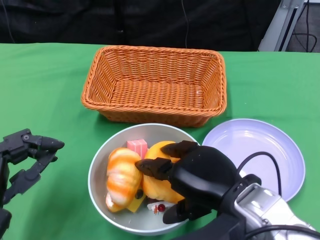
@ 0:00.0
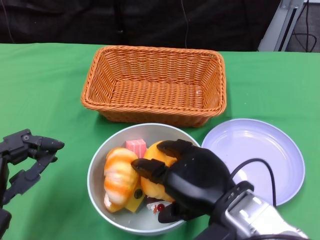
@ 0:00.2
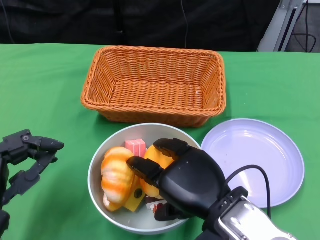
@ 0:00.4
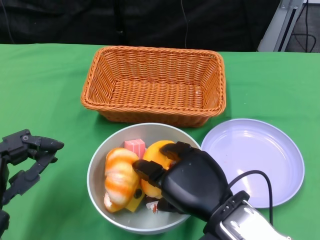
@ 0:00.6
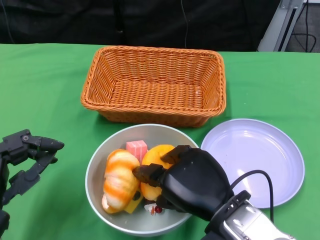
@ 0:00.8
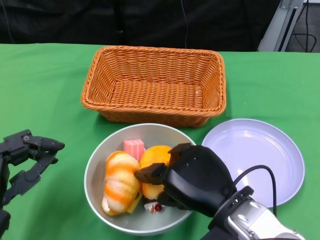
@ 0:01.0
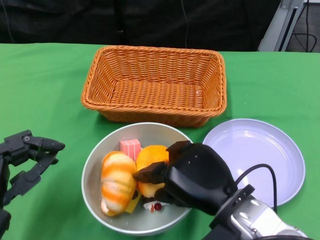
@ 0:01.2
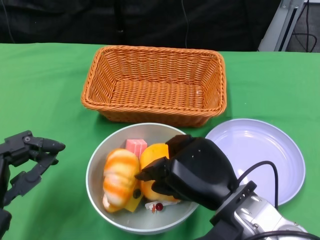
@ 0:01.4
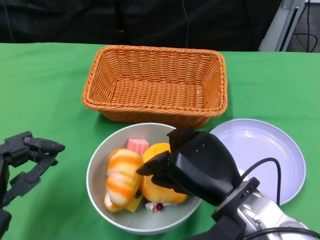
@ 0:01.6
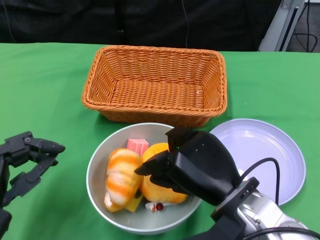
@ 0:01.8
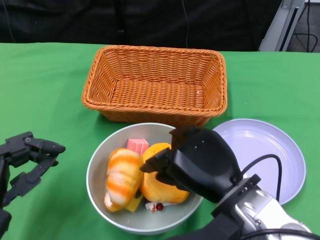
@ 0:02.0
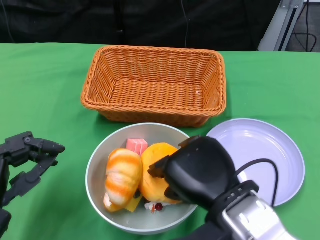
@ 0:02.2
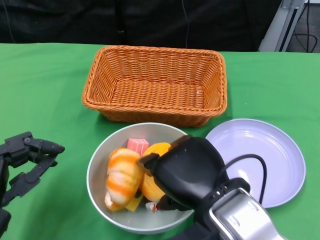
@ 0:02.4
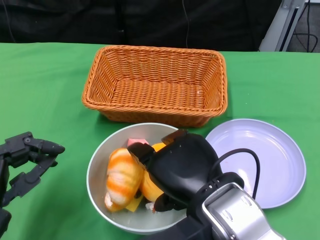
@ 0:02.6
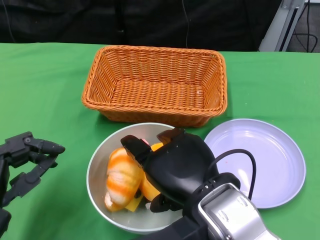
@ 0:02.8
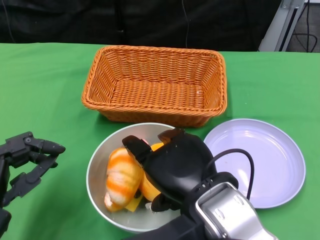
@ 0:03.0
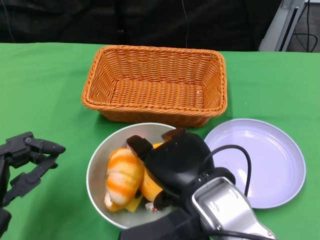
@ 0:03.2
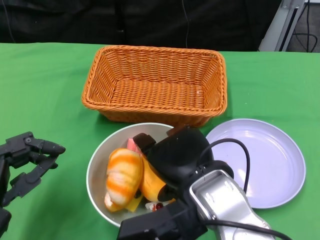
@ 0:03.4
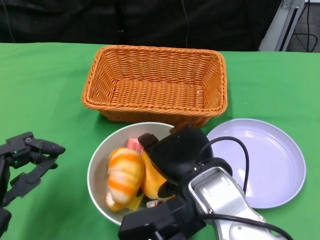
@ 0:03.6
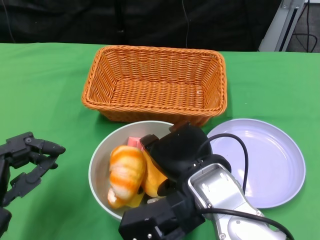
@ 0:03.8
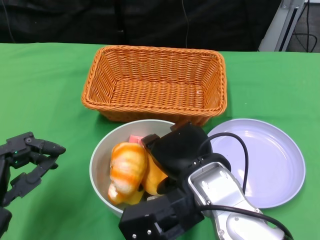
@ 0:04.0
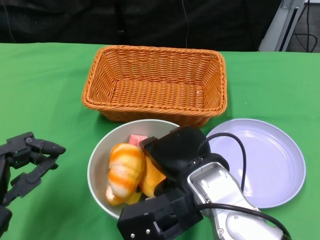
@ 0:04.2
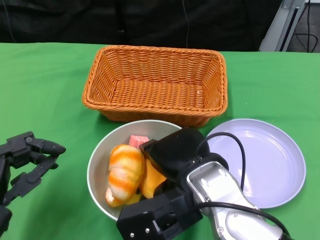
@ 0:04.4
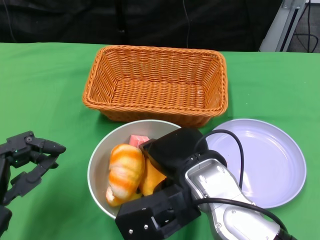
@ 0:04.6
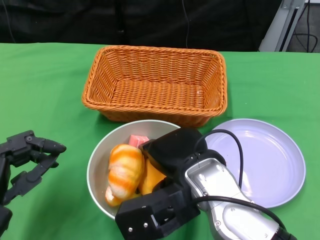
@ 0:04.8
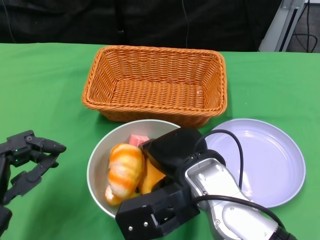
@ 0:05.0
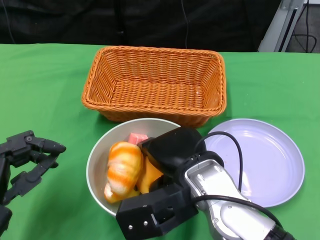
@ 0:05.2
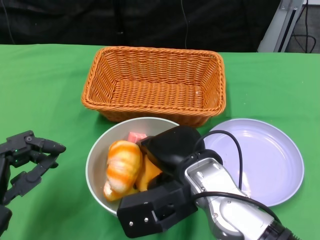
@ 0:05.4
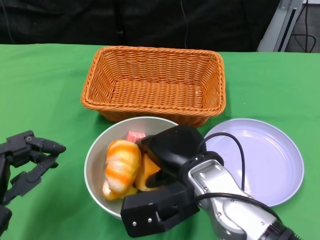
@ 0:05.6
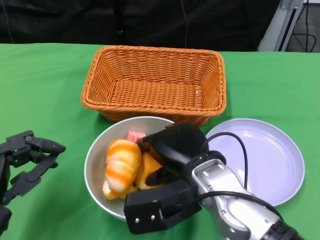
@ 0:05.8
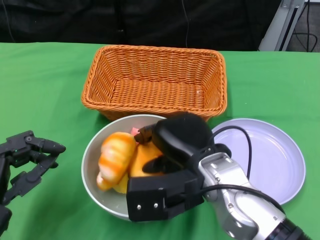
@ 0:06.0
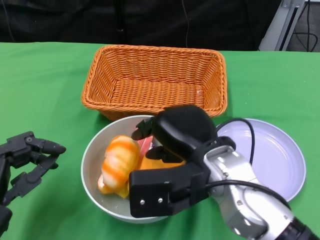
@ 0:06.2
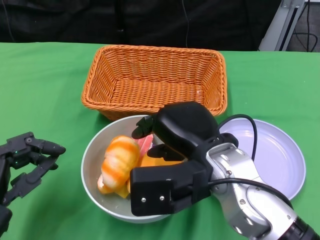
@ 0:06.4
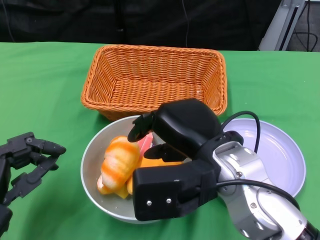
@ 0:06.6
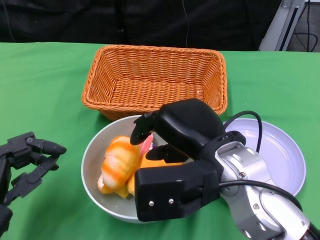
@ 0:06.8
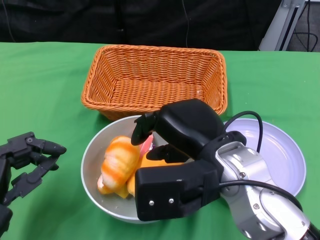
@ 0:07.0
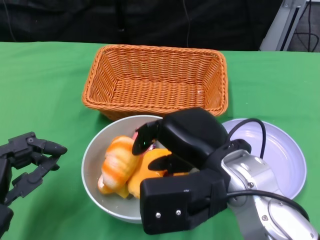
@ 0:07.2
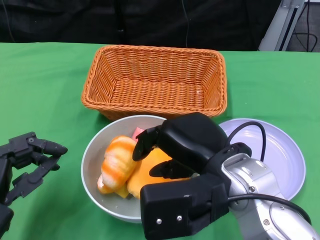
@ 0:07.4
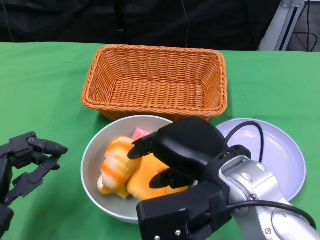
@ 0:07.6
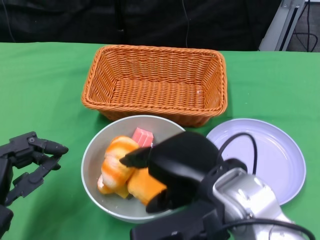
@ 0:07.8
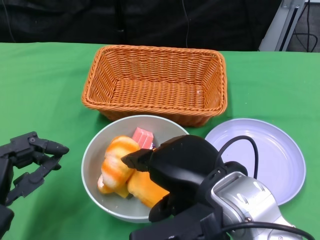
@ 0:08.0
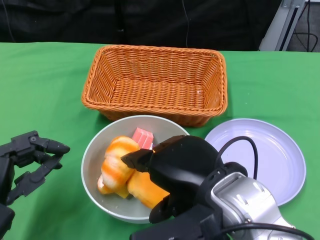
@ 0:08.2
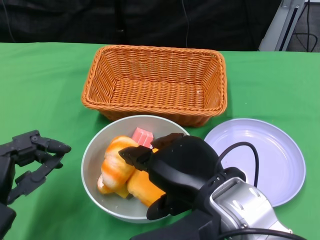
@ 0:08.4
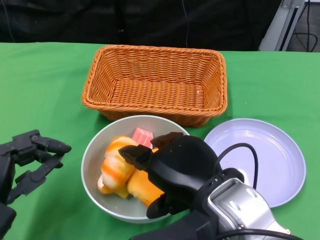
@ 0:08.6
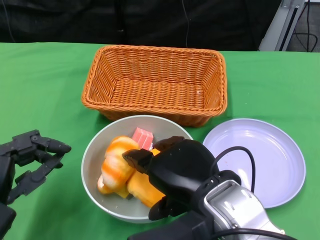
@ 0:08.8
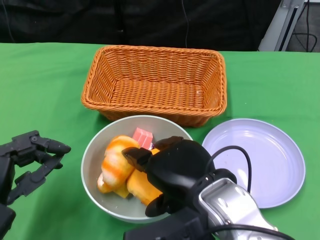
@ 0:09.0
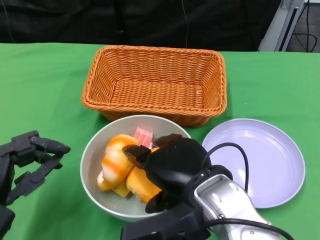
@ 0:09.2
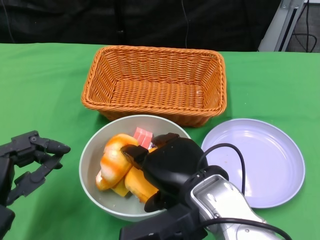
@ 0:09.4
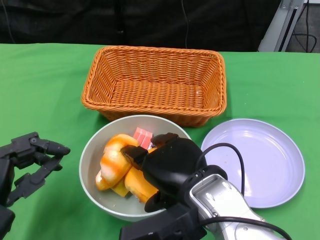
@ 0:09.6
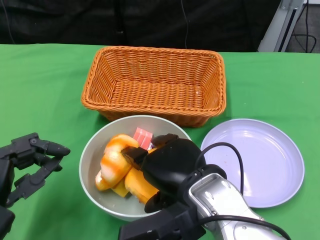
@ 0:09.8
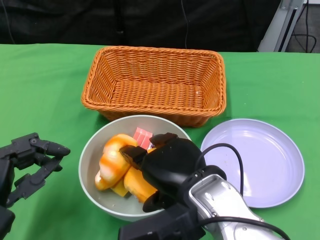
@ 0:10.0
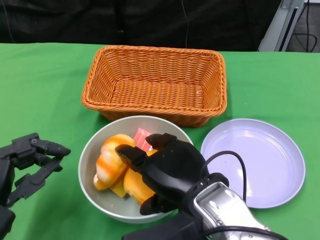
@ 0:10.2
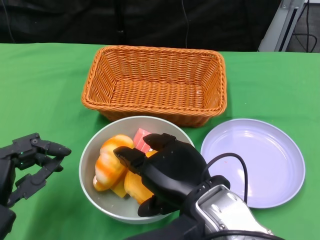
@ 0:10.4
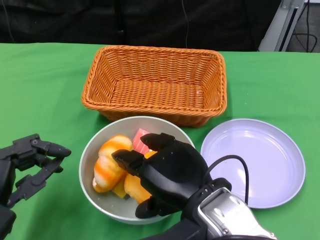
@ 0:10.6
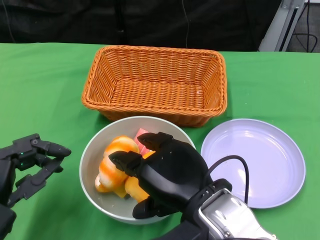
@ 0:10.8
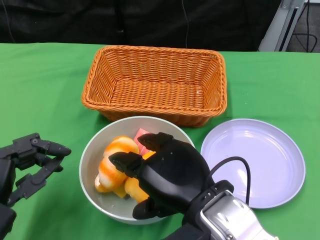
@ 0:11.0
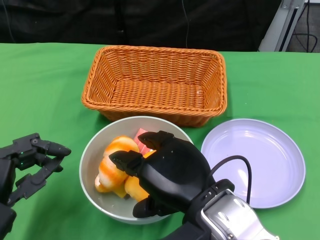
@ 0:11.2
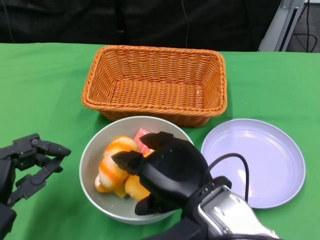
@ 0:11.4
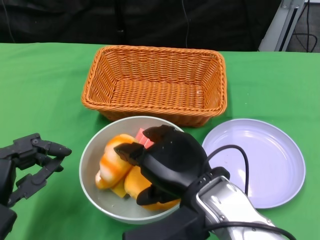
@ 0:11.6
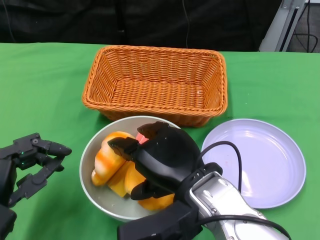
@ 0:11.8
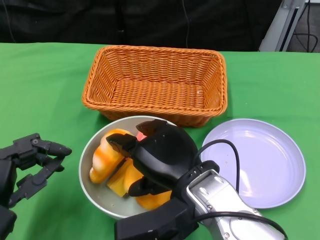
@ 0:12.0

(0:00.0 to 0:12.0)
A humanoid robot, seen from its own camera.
0:01.6 - 0:03.0: The right hand moves upward, about 5 cm.
0:03.0 - 0:04.4: There are only small adjustments of the hands.
0:06.0 - 0:07.6: The right hand goes approximately 5 cm upward.
0:07.6 - 0:12.0: The hands stay close to where they were, moving slightly.

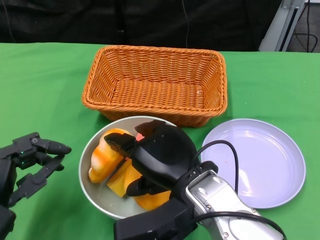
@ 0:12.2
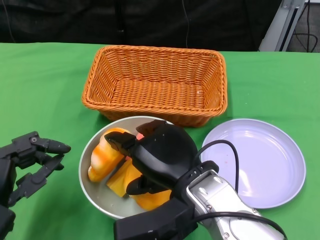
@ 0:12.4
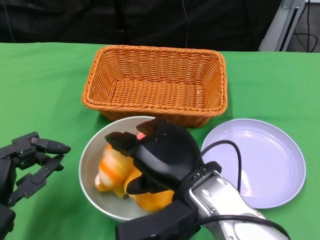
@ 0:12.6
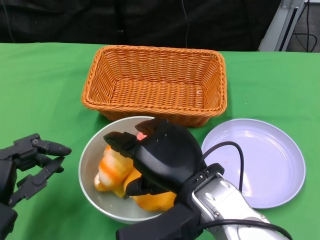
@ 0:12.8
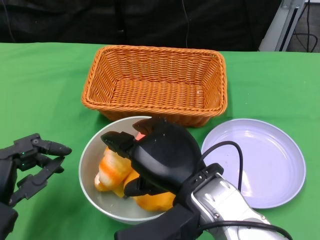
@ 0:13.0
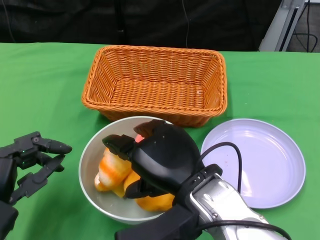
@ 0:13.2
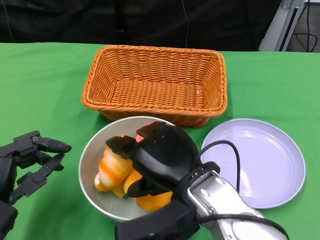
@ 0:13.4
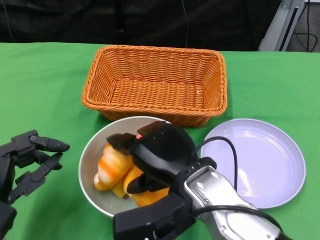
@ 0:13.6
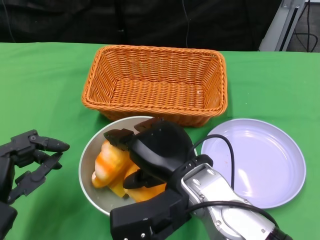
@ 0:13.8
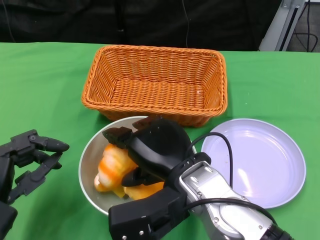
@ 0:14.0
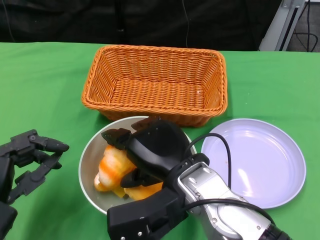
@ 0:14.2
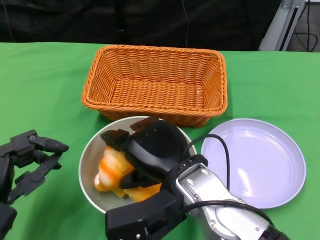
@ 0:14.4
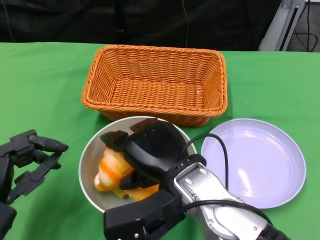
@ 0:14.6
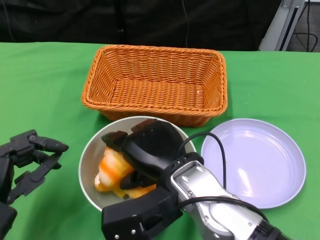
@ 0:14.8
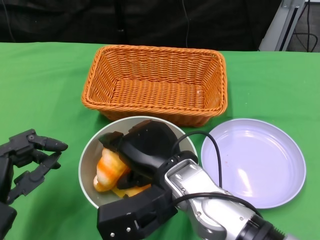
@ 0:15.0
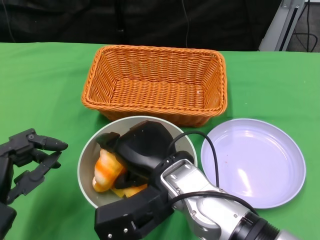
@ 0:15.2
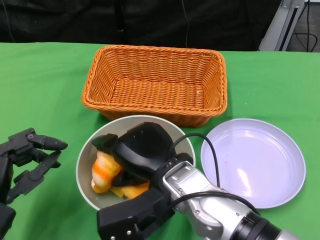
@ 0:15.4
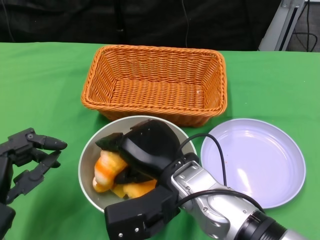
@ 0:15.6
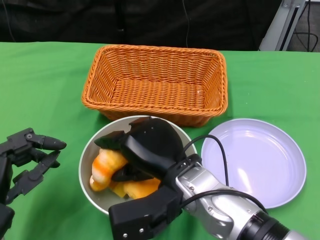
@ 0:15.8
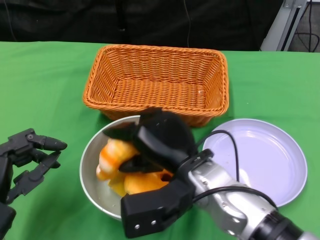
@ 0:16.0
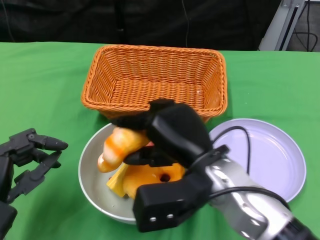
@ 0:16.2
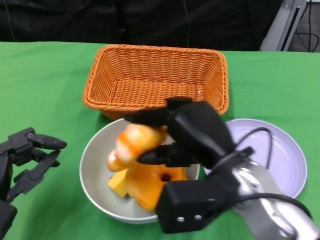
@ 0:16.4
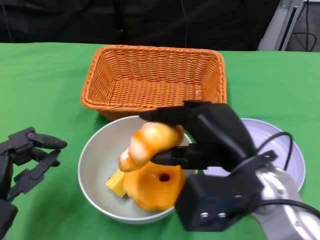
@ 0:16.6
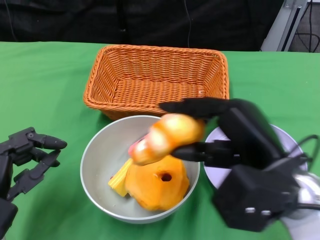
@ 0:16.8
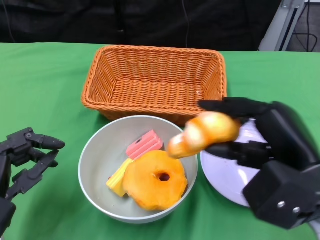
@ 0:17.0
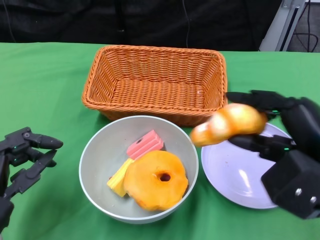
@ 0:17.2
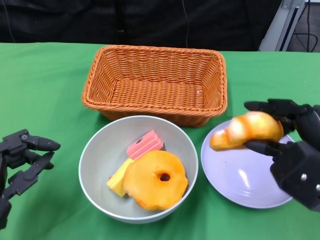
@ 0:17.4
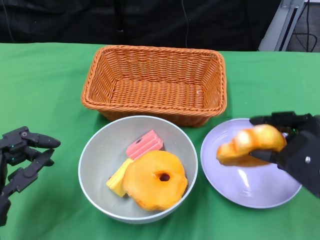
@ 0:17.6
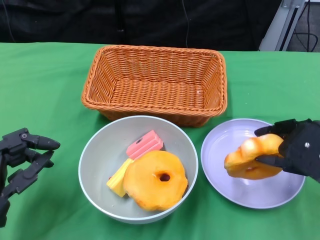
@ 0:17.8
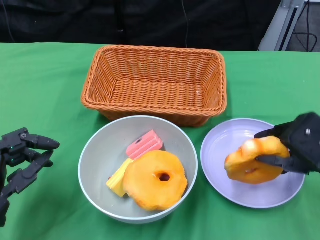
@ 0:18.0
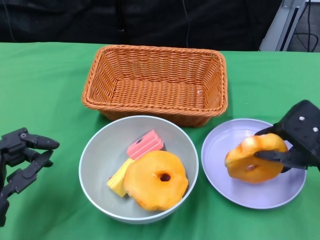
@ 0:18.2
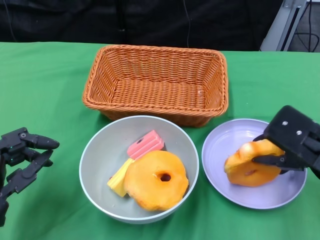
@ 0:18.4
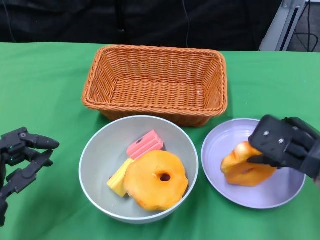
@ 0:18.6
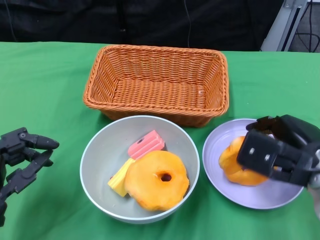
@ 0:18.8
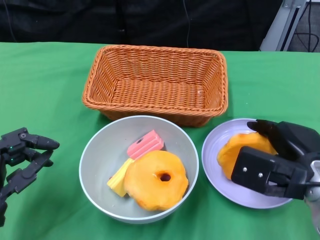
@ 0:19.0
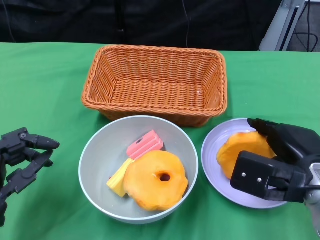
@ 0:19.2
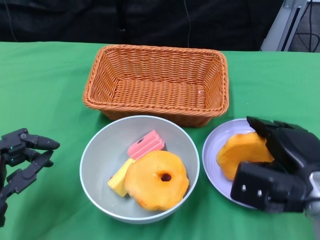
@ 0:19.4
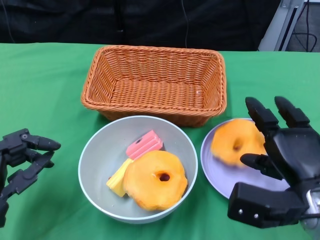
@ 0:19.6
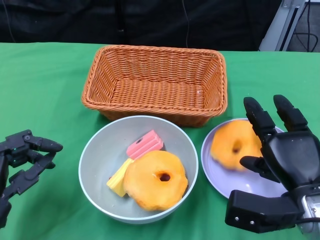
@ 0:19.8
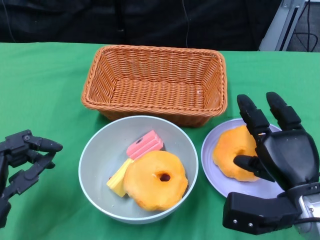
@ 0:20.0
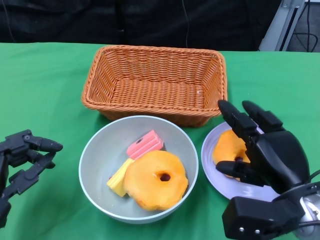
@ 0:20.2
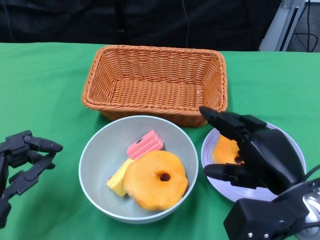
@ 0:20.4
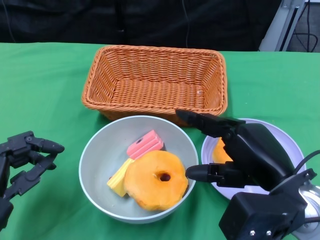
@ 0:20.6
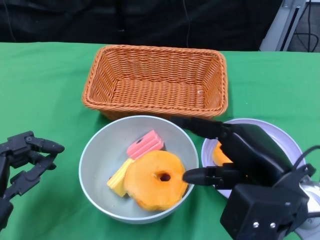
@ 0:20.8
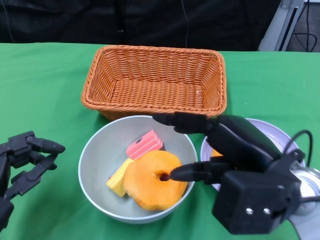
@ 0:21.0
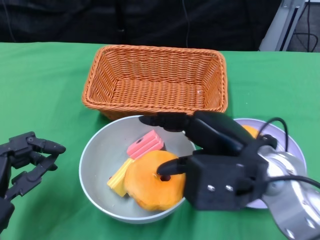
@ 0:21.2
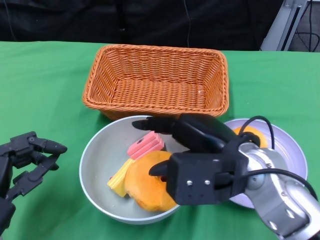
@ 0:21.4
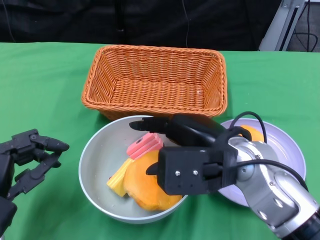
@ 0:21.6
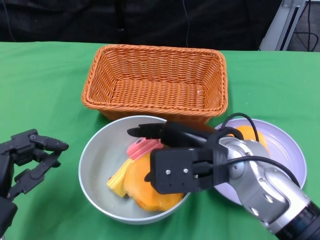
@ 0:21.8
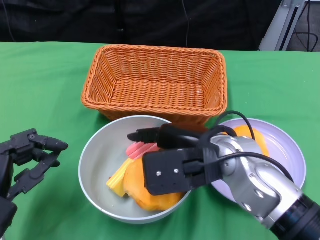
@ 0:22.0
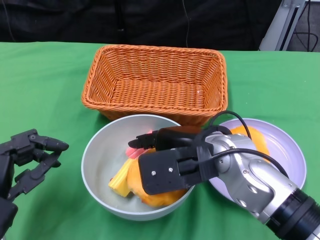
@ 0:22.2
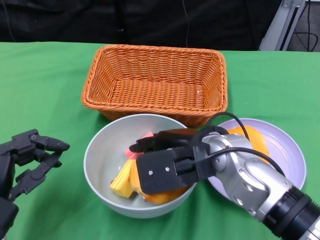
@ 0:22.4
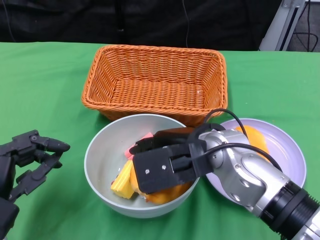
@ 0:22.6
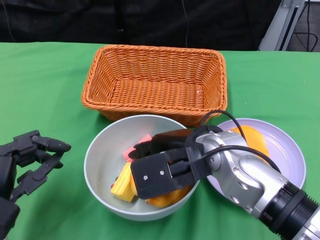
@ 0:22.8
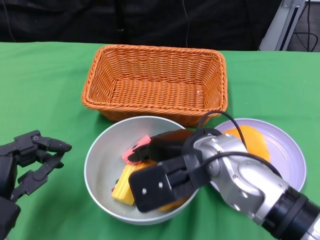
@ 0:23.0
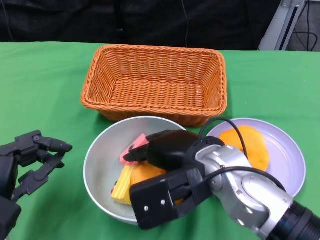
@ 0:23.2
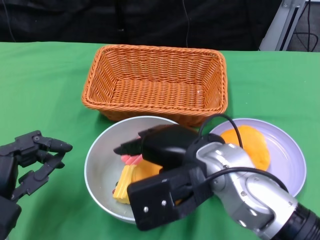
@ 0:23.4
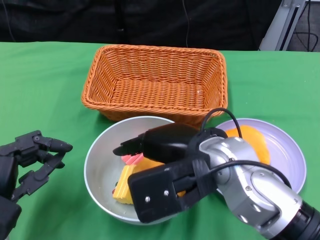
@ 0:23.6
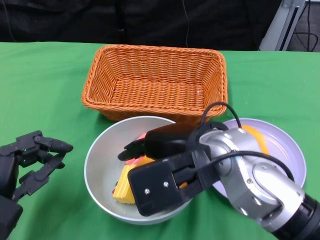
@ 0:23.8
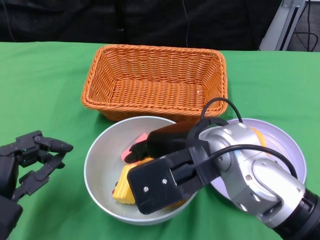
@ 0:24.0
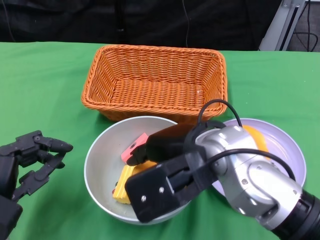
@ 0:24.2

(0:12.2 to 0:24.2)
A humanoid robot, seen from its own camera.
0:12.2 - 0:15.2: The hands make only small movements.
0:15.2 - 0:16.6: The right hand travels to the right by approximately 10 cm.
0:16.6 - 0:18.2: The right hand heads to the right, covering some 15 cm.
0:18.2 - 0:19.8: The right hand moves downward, some 5 cm.
0:19.8 - 0:21.2: The right hand goes some 10 cm upward and to the left.
0:21.2 - 0:22.6: The right hand heads to the left, covering approximately 5 cm.
0:22.6 - 0:24.2: The hands make only small movements.
